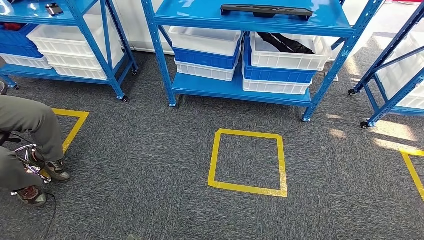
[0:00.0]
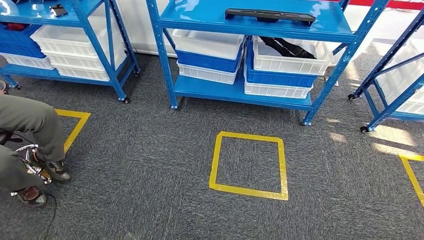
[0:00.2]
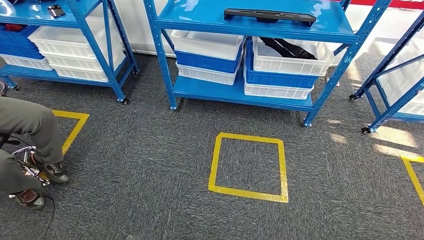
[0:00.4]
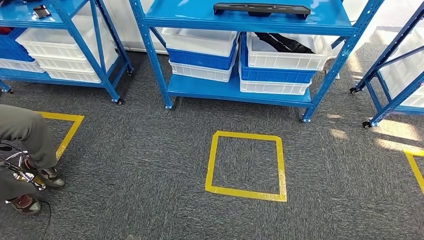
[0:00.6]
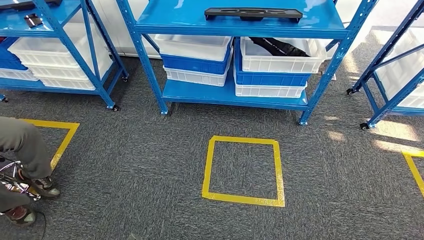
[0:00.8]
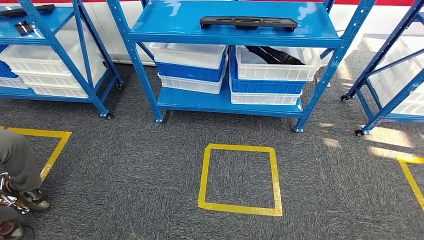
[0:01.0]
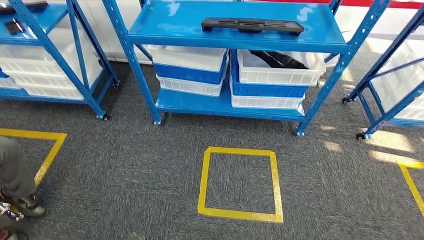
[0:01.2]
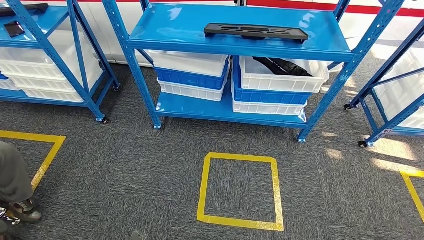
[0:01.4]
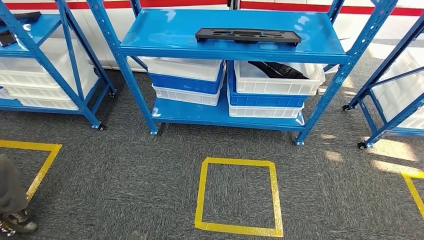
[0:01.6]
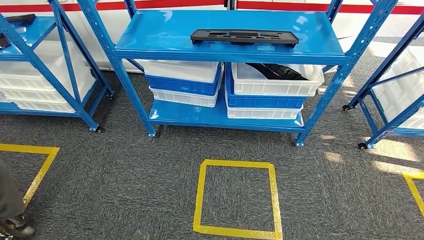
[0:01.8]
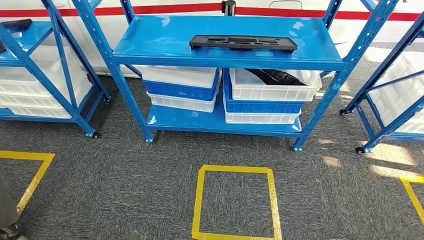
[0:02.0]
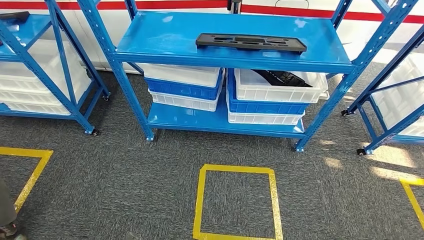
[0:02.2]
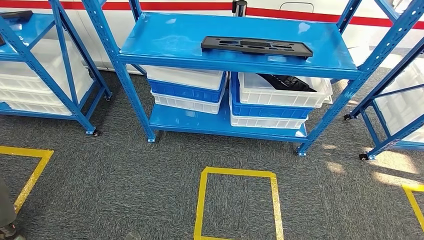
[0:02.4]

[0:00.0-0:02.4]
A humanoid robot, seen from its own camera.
Step, 0:00.0 to 0:02.4: Return to the initial position at the shelf.
